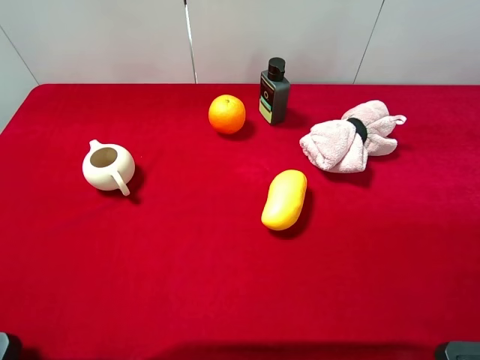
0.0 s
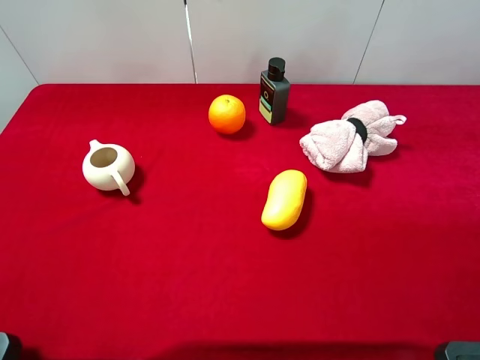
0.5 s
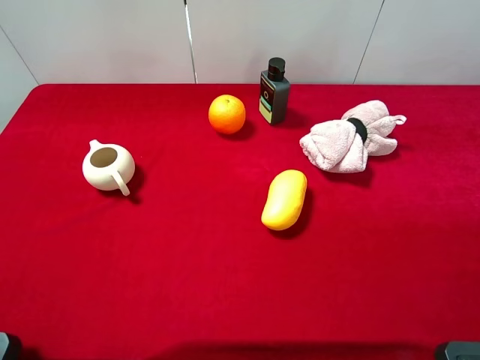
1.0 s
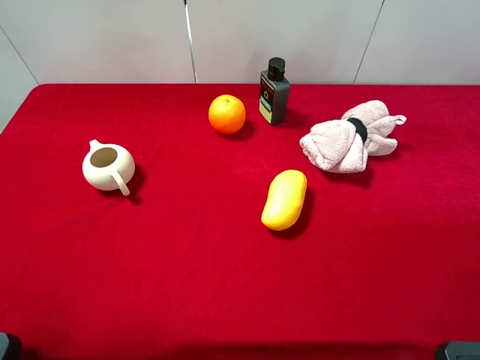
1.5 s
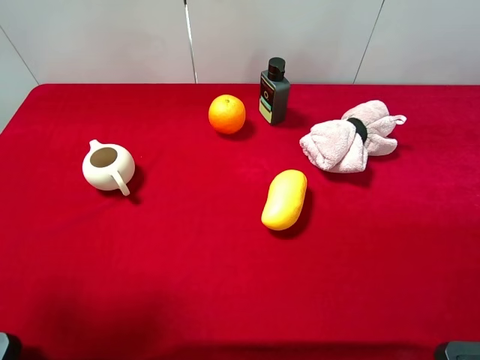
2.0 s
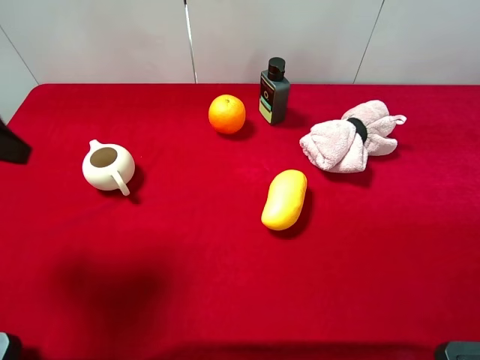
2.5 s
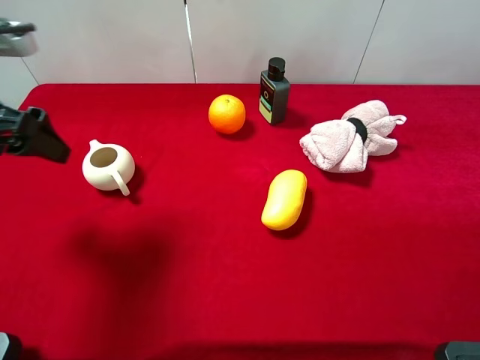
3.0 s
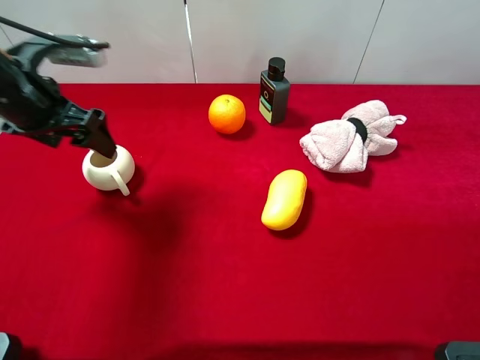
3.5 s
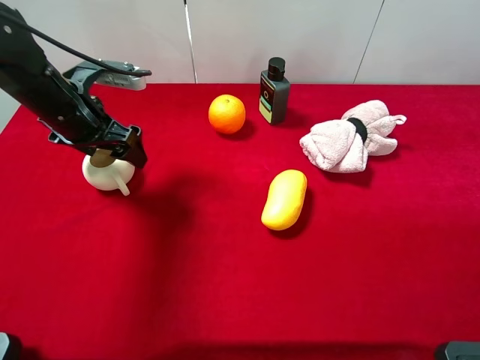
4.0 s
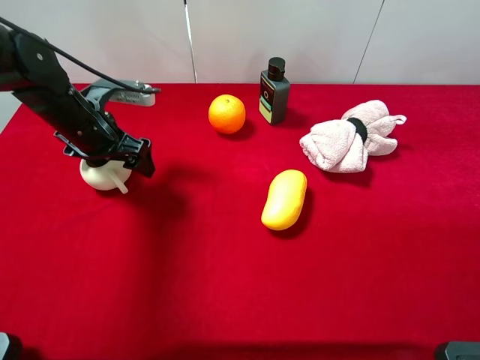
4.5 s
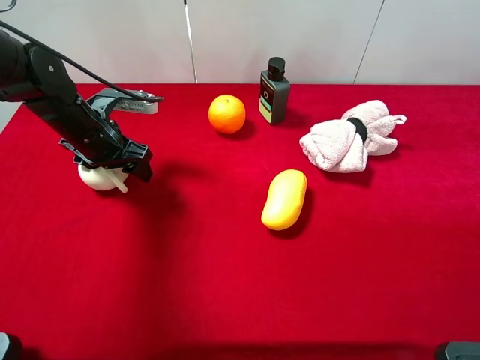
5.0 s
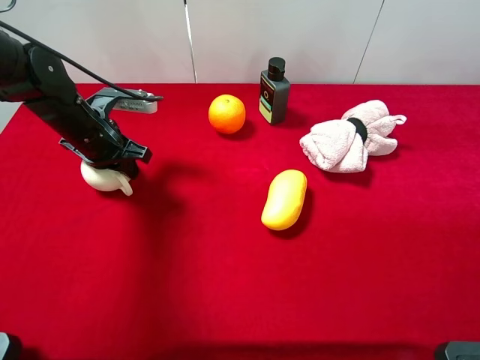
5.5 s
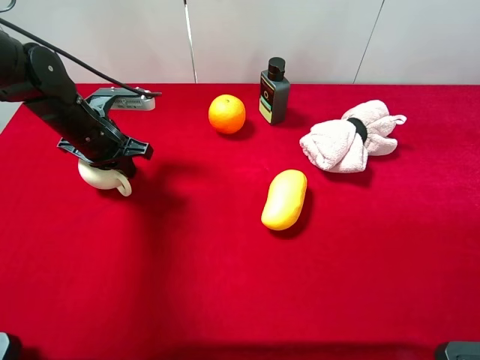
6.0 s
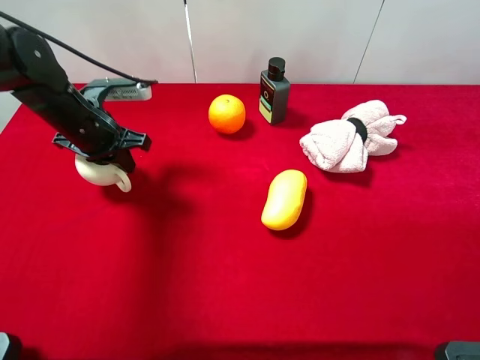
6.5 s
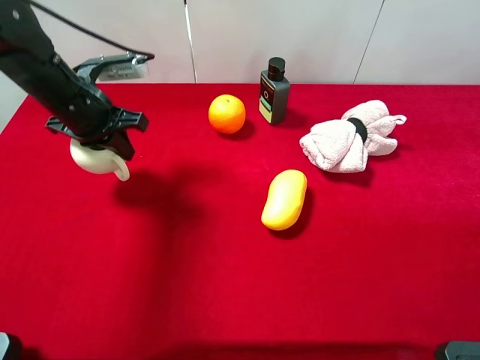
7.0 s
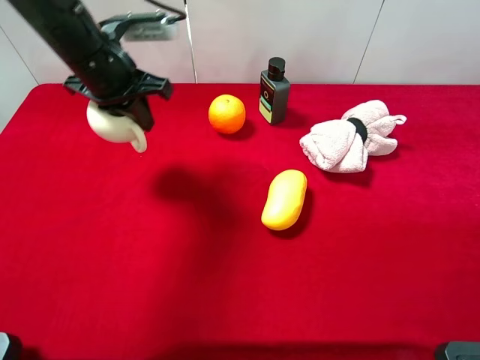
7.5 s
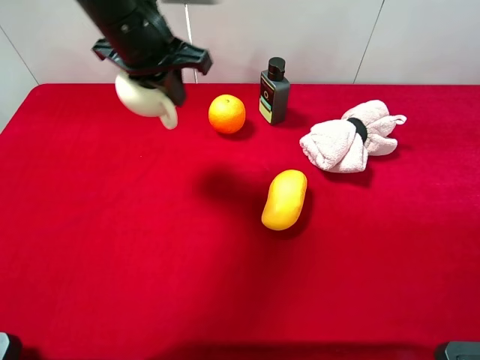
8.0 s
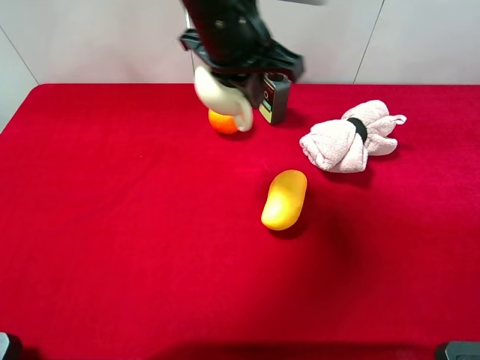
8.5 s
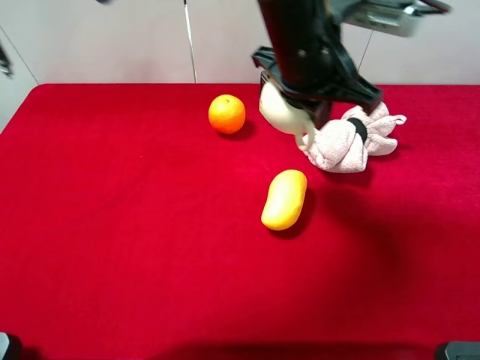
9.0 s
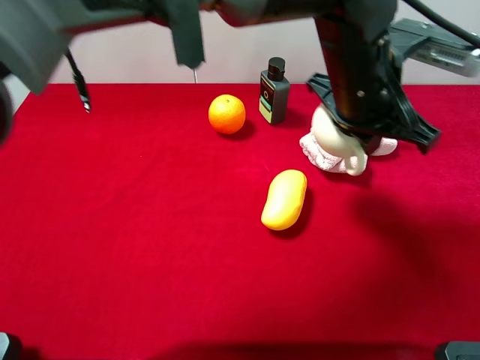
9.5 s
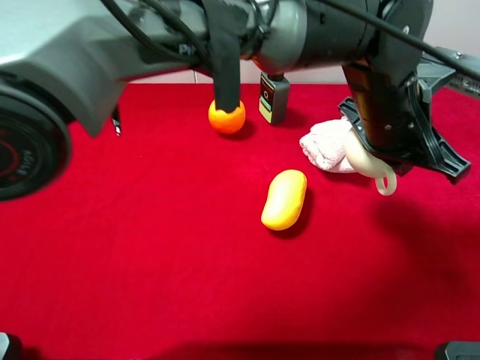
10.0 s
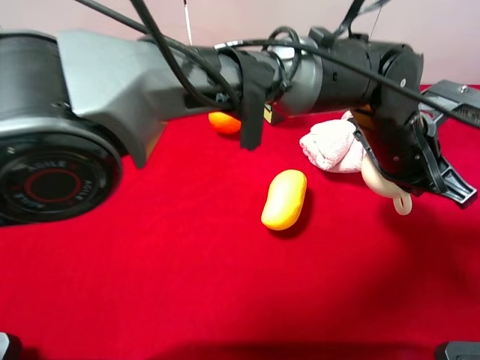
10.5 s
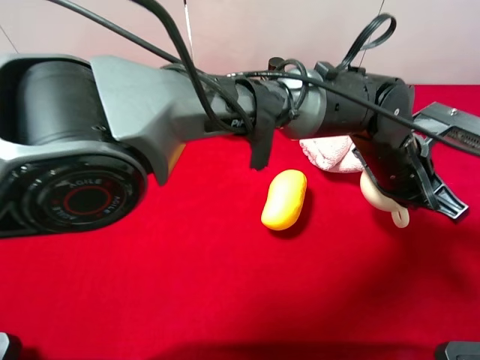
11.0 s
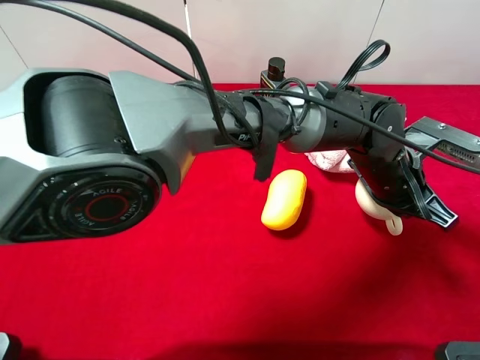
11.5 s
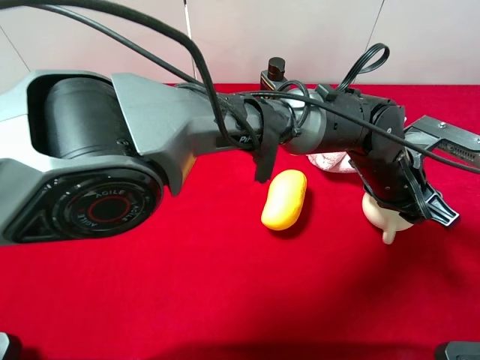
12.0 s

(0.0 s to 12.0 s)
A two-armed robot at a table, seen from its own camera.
Task of the whole recording: the gripper move the object.
0.0 s - 2.0 s: The left gripper heads forward, covering approximately 10 cm.
2.0 s - 4.0 s: The left gripper heads forward, downward and to the right, covering roughly 25 cm.
4.0 s - 6.0 s: The left gripper is displaced downward by about 5 cm, and closes up.
6.0 s - 8.0 s: The left gripper is displaced upward and to the right by about 20 cm.
8.0 s - 10.0 s: The left gripper is displaced to the right by about 25 cm.
10.0 s - 12.0 s: The left gripper goes roughly 10 cm downward, and opens.

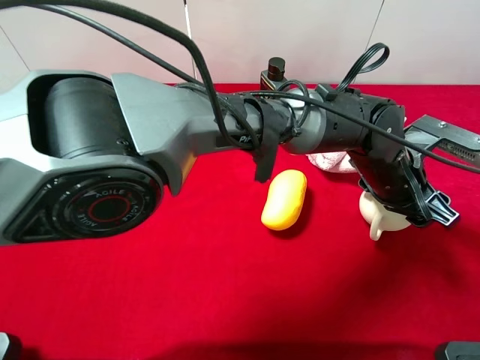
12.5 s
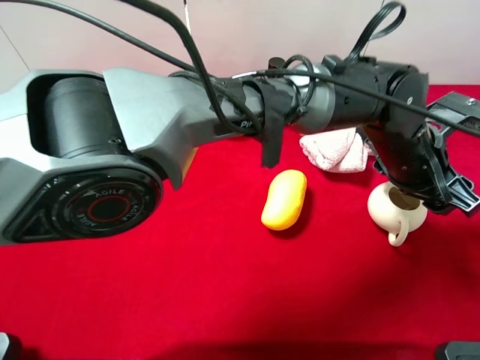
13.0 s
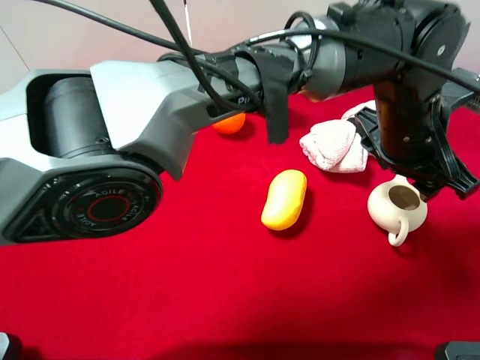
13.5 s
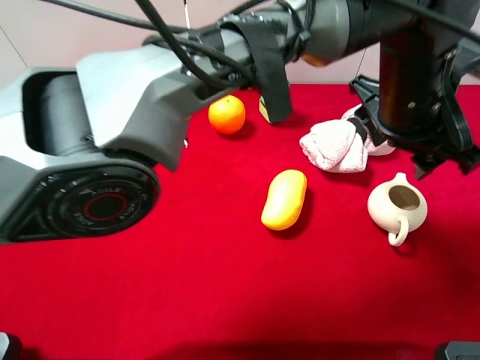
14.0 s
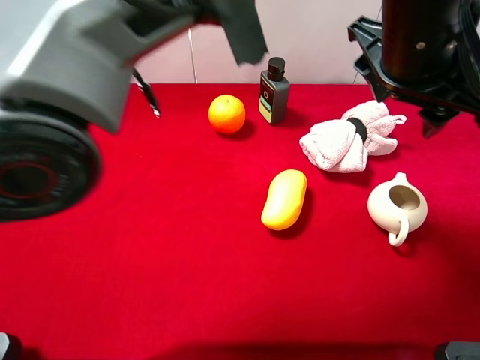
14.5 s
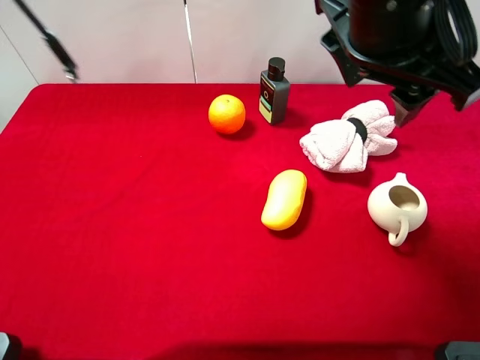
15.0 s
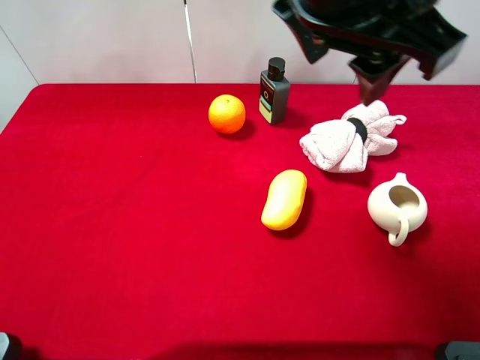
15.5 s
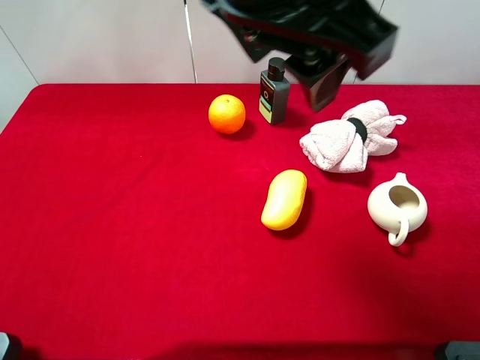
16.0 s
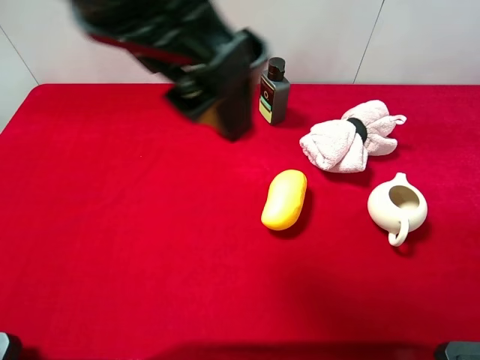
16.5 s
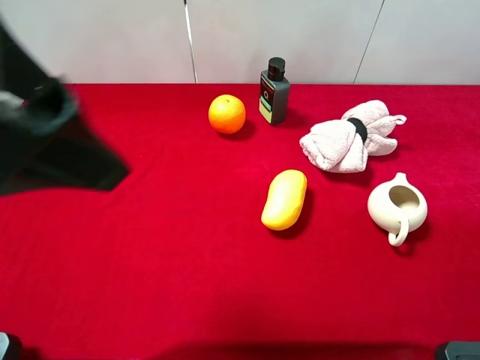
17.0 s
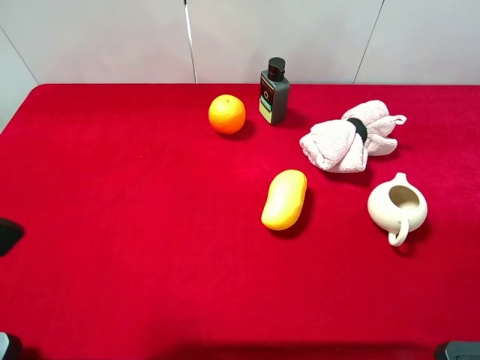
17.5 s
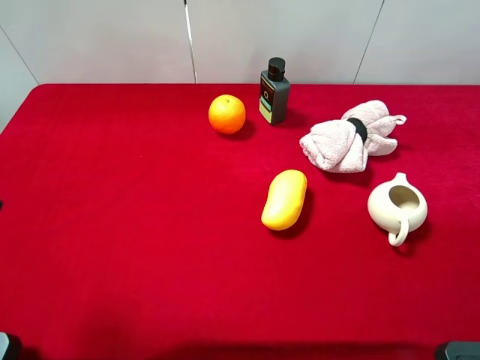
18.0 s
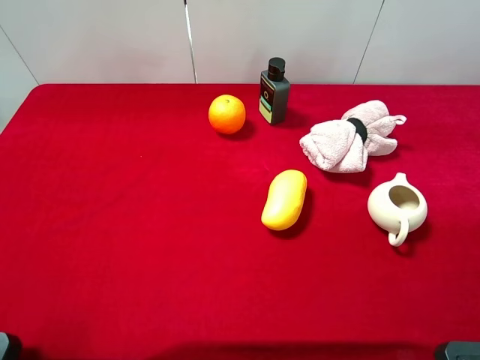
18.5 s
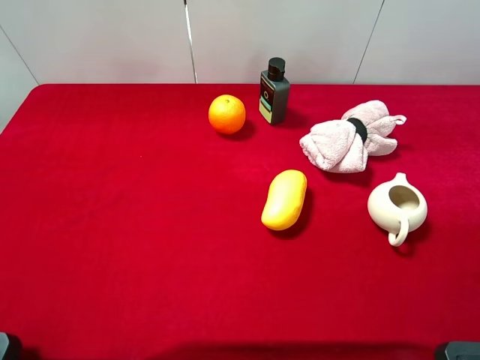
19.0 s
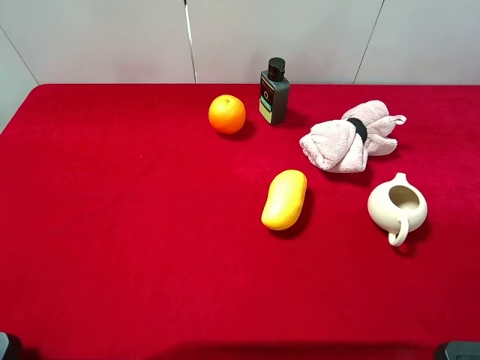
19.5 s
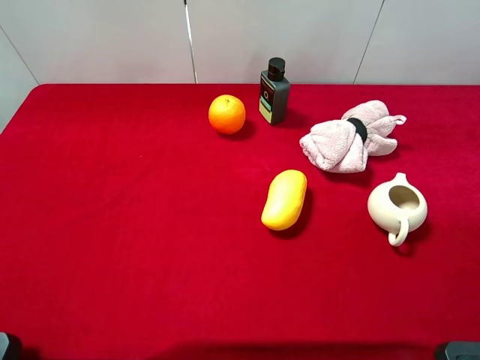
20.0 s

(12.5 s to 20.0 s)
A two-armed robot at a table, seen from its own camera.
Task of the whole recording: the gripper move the object.
12.5 s - 14.5 s: The left gripper is displaced upward by approximately 20 cm.
14.5 s - 16.5 s: The left gripper is displaced to the left and backward by roughly 25 cm.
16.5 s - 18.0 s: The left gripper heads to the left, covering approximately 20 cm.

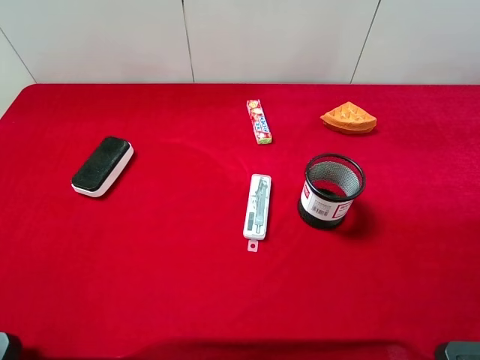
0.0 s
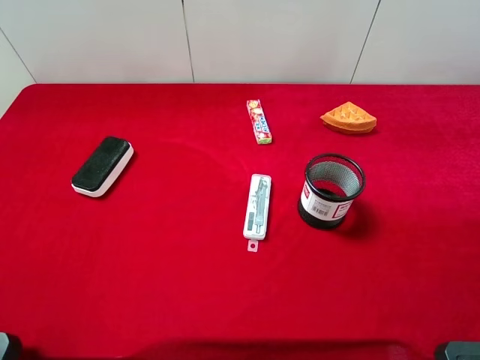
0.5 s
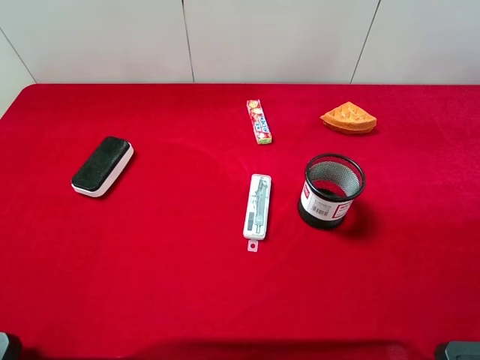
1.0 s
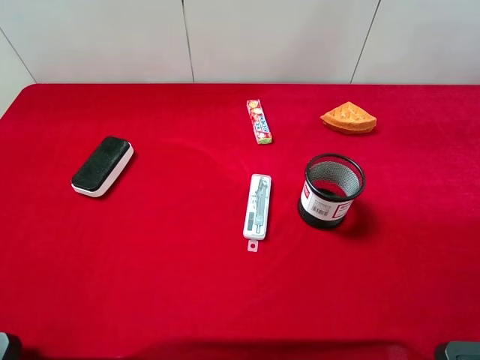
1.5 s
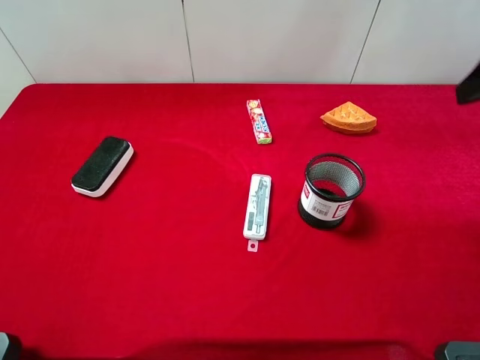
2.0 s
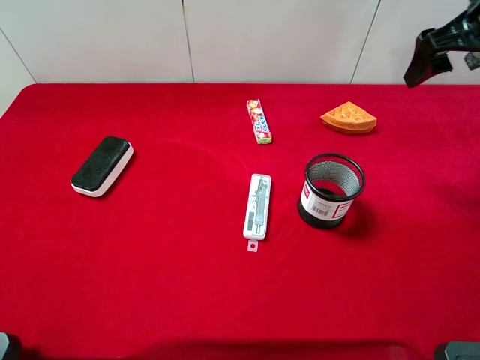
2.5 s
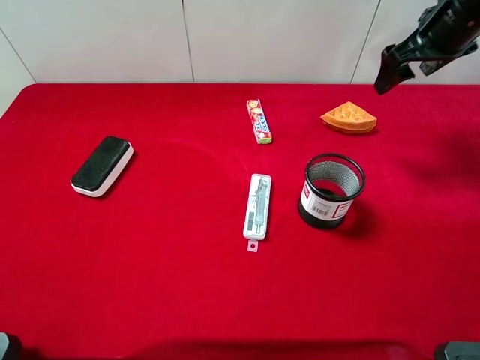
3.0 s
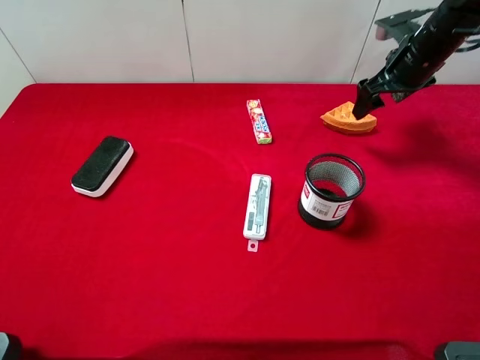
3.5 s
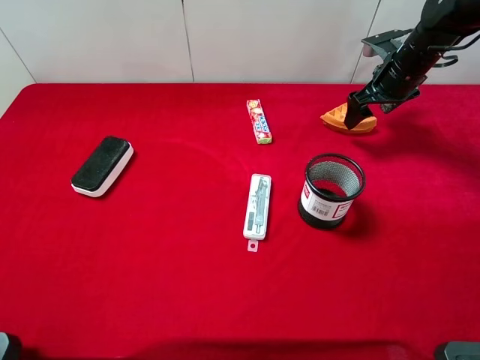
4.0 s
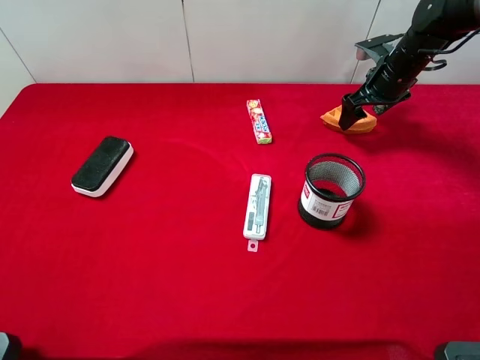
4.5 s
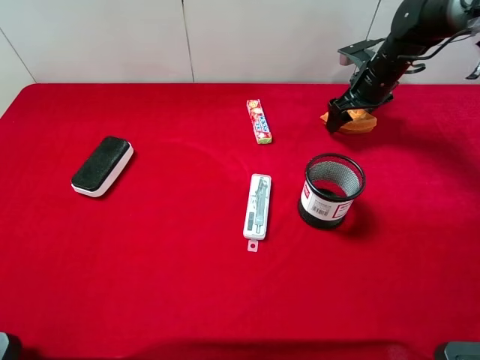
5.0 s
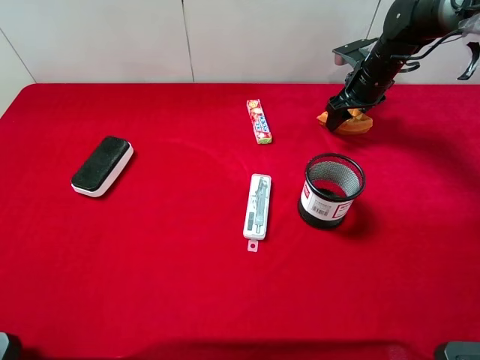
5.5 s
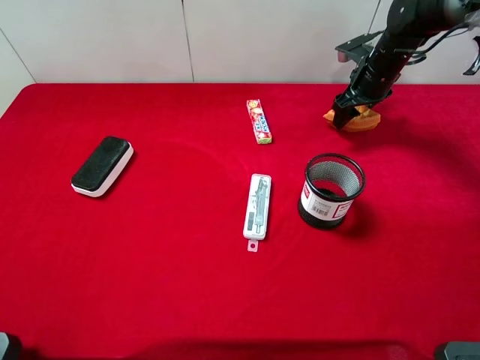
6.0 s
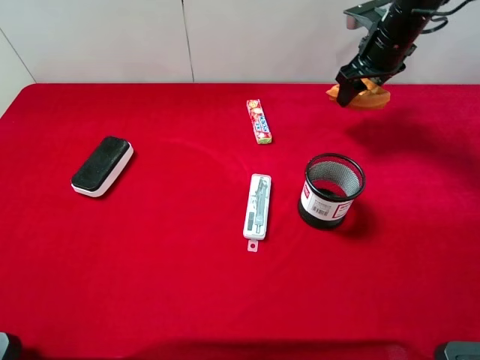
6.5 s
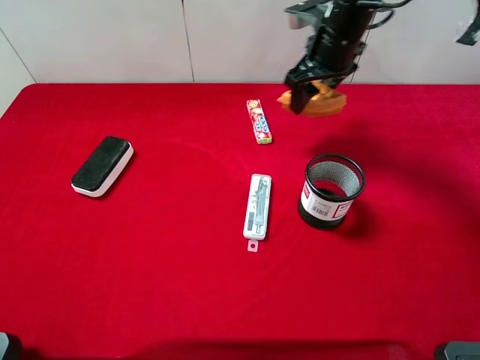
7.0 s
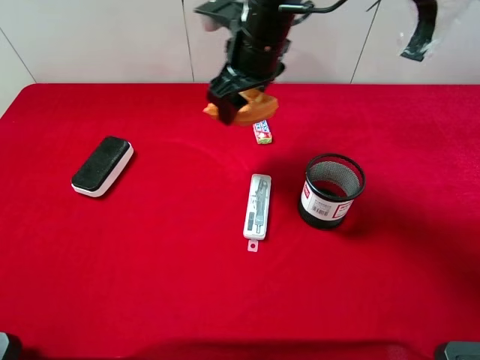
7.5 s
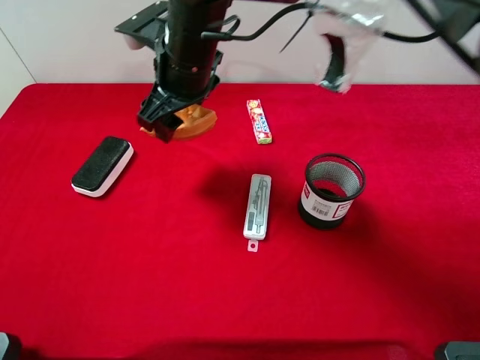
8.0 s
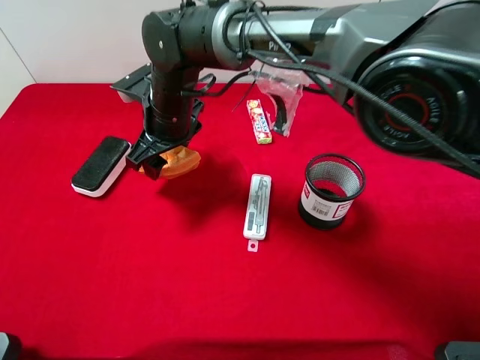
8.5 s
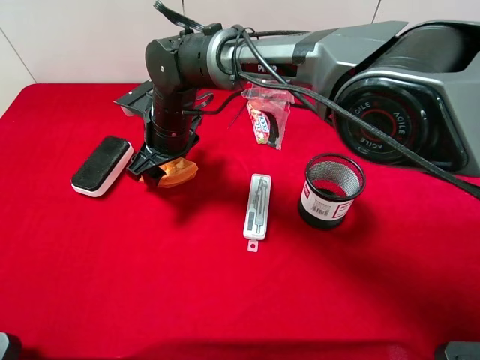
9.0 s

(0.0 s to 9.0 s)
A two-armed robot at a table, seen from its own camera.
Task of the whole recording: the gripper move the object.
Step, 0.0 s - 5.5 s: Grasp the waffle with the right gripper.
2.0 s - 4.5 s: The right gripper is displaced forward and downward by about 30 cm.
4.5 s - 7.0 s: The right gripper goes roughly 15 cm to the left and upward, and closes.
7.0 s - 9.0 s: The right gripper goes about 25 cm to the left and downward.
